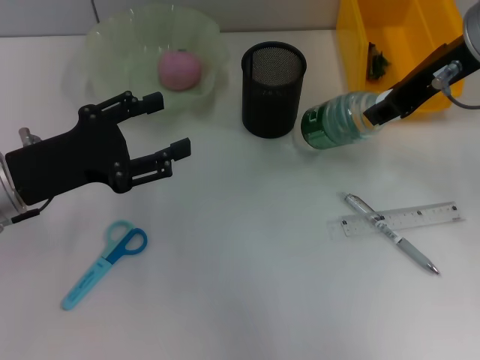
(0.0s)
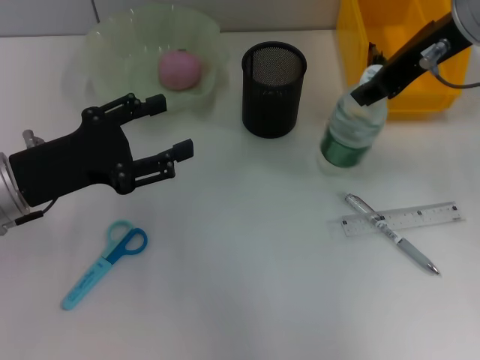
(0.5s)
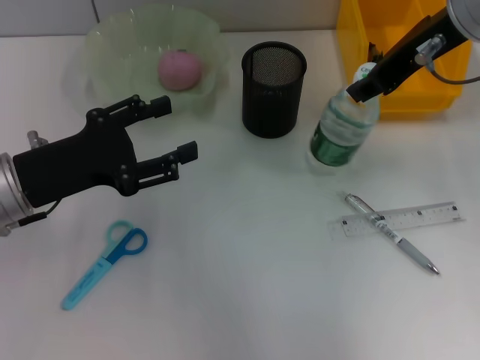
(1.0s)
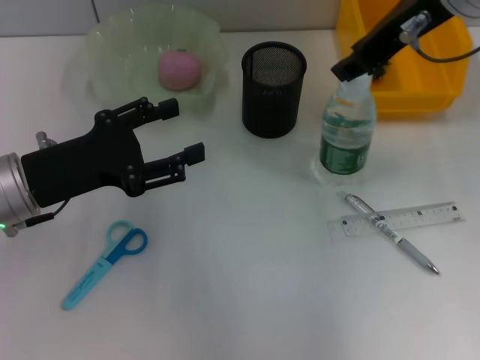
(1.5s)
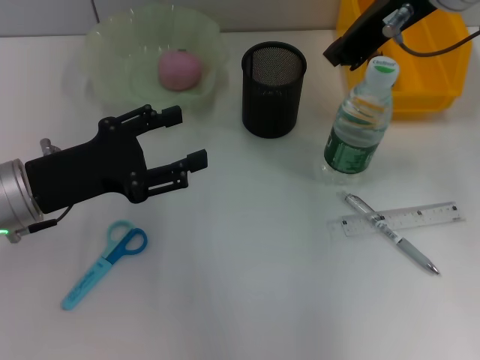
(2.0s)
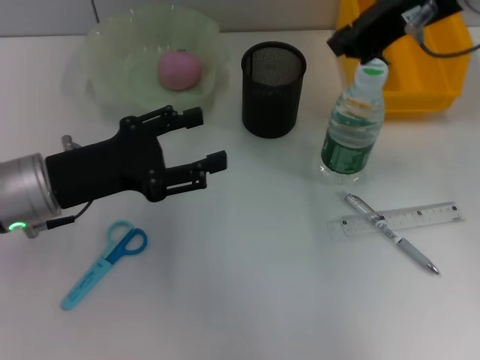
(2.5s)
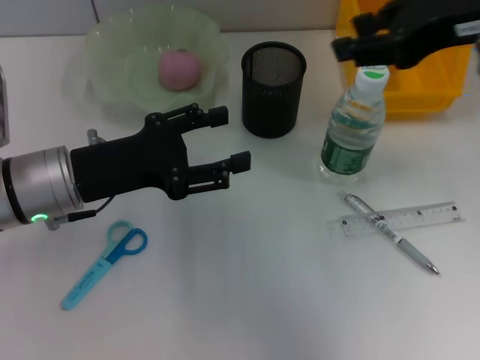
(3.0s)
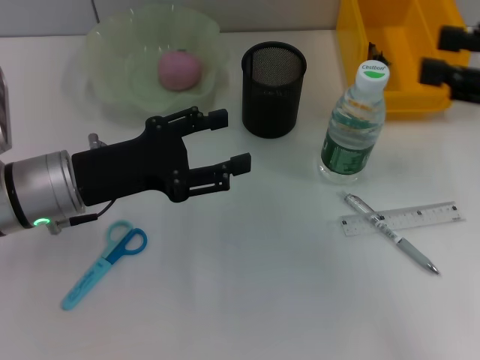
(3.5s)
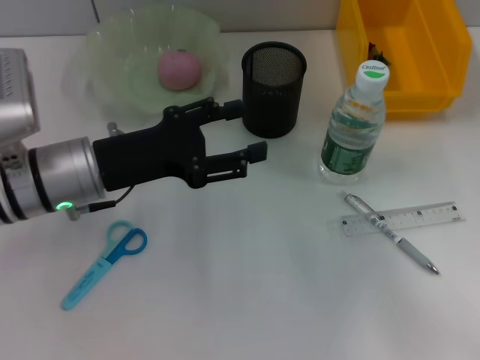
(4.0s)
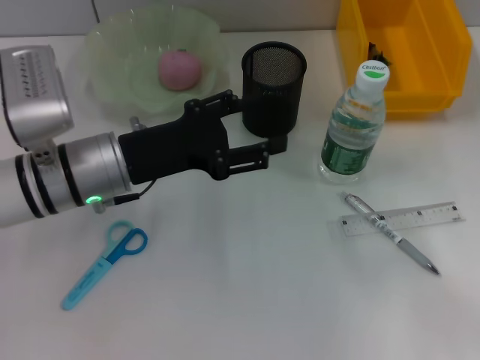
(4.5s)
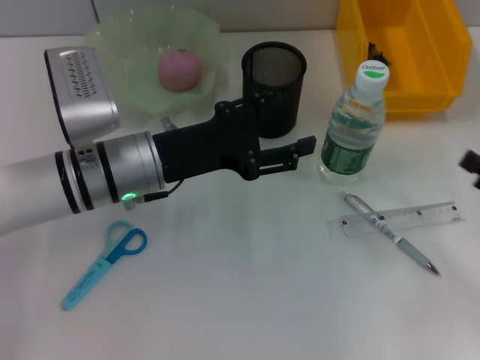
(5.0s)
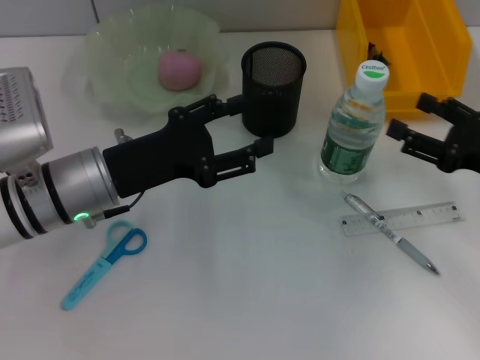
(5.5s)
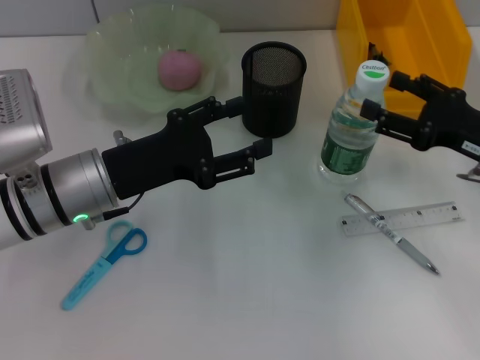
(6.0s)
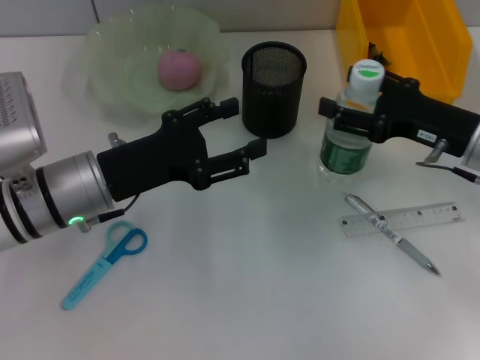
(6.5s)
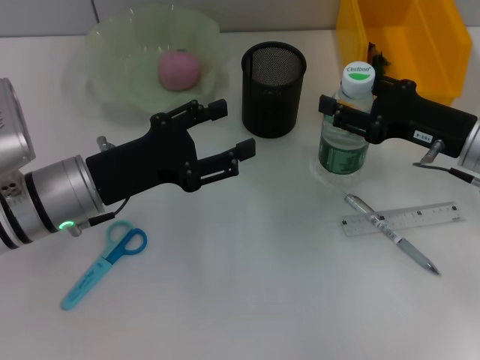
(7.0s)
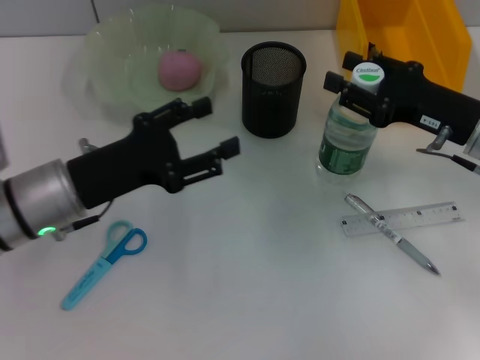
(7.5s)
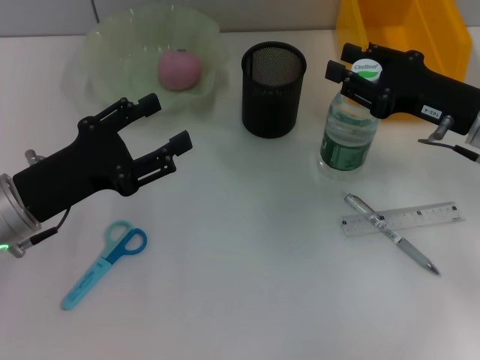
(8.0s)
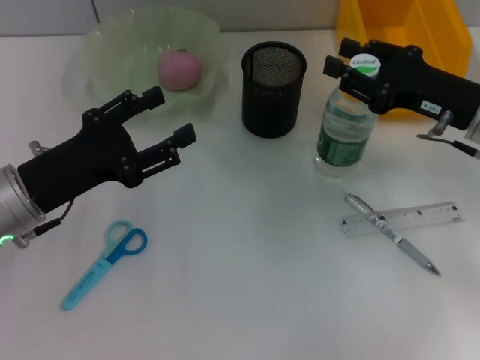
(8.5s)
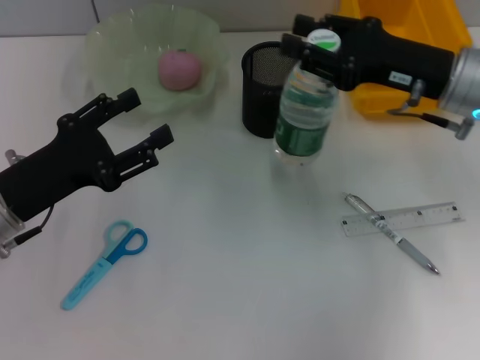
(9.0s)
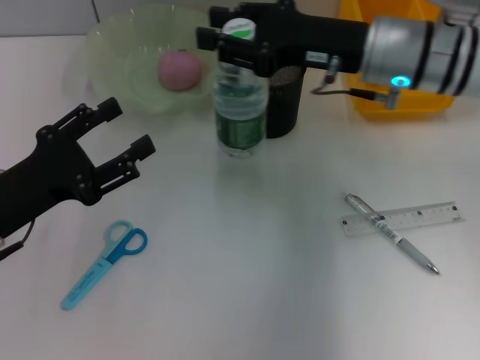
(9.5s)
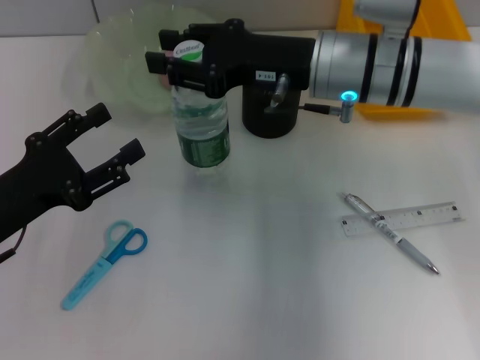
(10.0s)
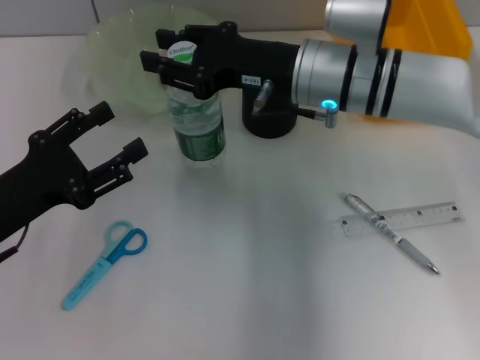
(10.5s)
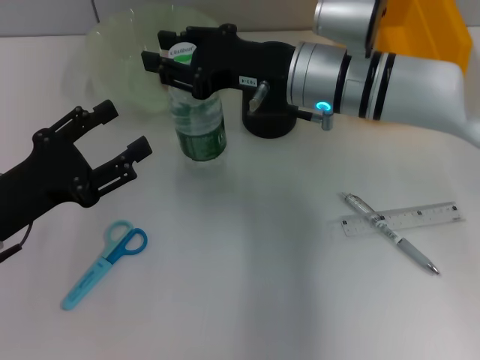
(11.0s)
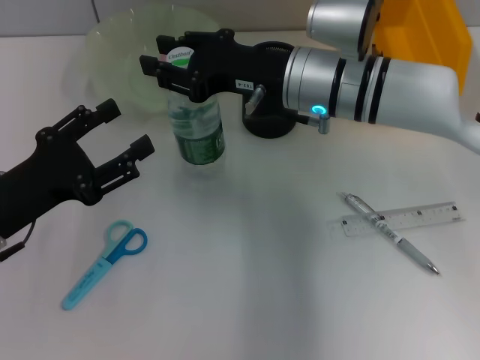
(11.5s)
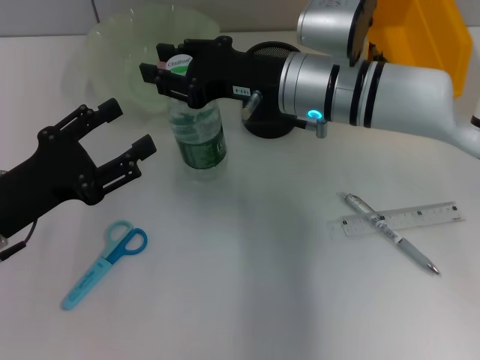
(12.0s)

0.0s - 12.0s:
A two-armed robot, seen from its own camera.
Step, 0.0s - 7.5s: Grab the water bottle with the right hand.
0.0s - 2.0s: The right gripper changes place by about 5 cm, and closes up.
2.0s - 4.0s: The right gripper heads to the right, backward and downward, covering about 35 cm, and opens up; the left gripper ends up roughly 5 cm from where it was.
4.0s - 6.0s: The right gripper moves forward and to the left, about 15 cm.
6.0s - 8.0s: The right gripper shifts by roughly 5 cm, and closes its fingers. Meanwhile the left gripper travels to the left by some 5 cm.
8.0s - 10.0s: The right gripper is displaced to the left by about 15 cm.
10.0s - 12.0s: The grippers make only small movements.

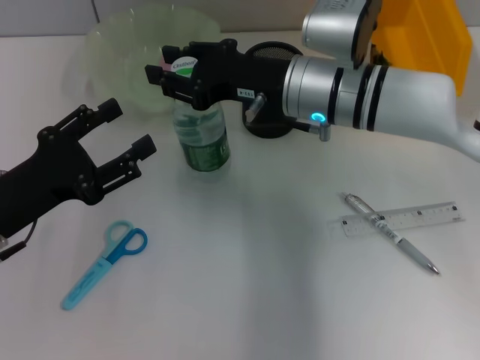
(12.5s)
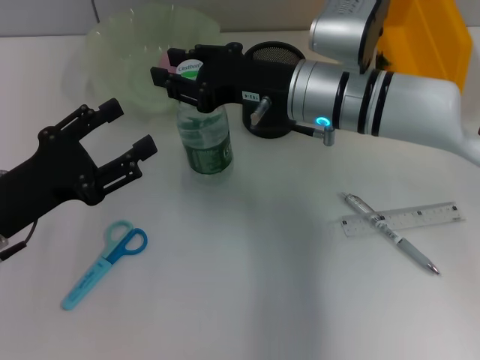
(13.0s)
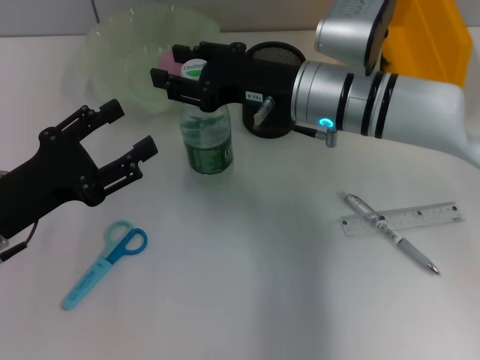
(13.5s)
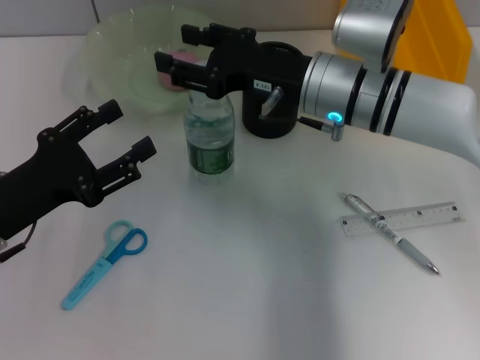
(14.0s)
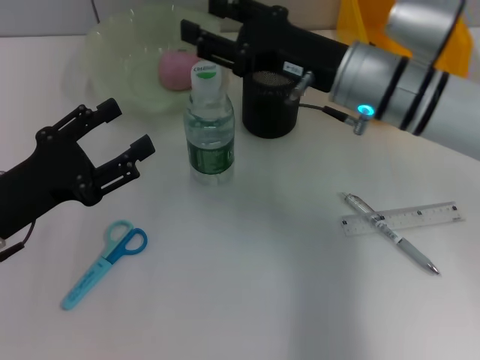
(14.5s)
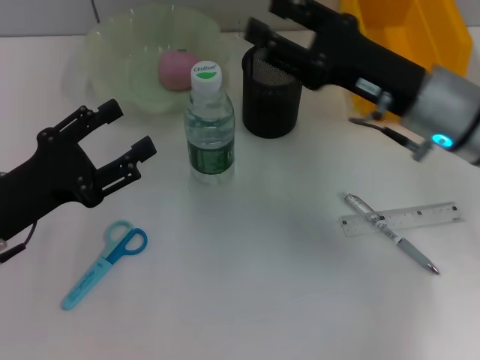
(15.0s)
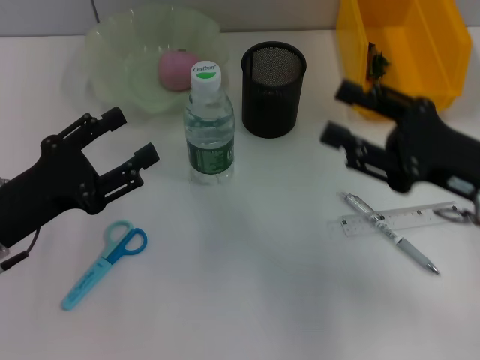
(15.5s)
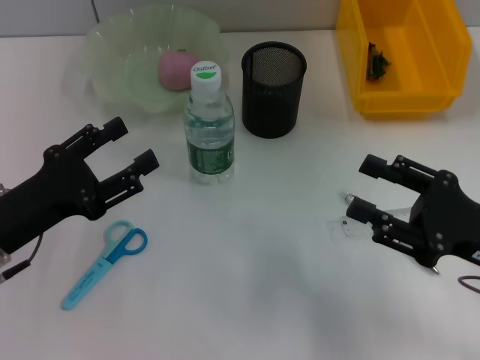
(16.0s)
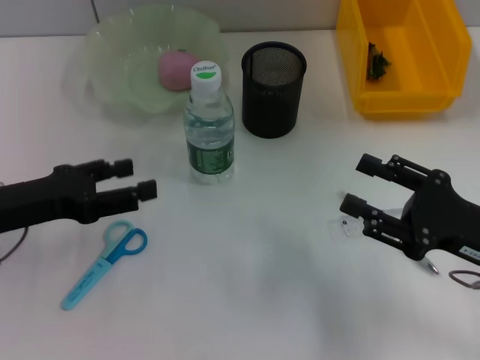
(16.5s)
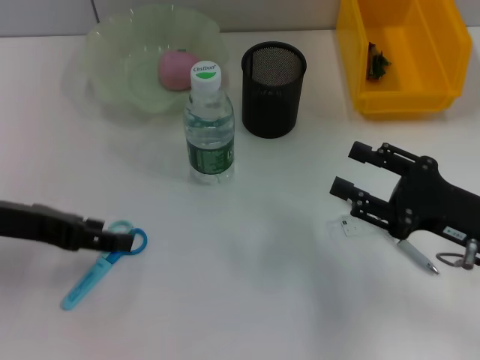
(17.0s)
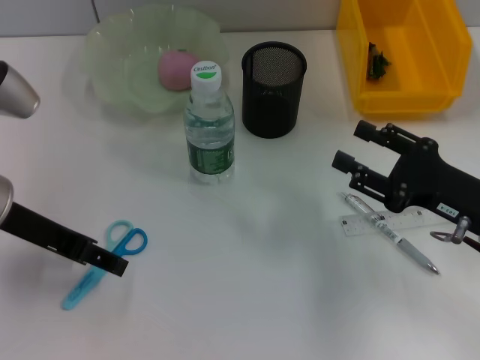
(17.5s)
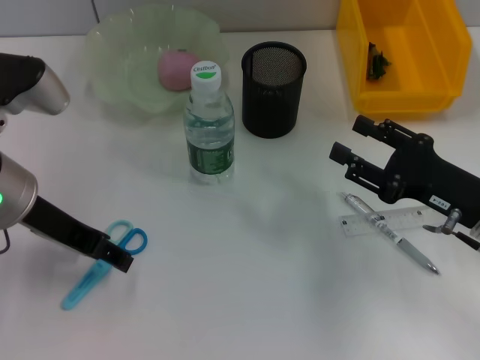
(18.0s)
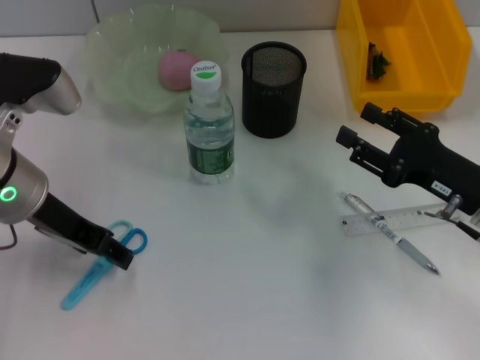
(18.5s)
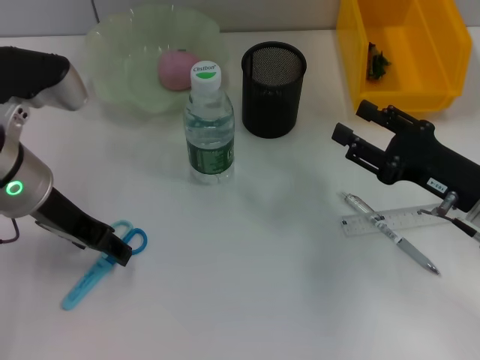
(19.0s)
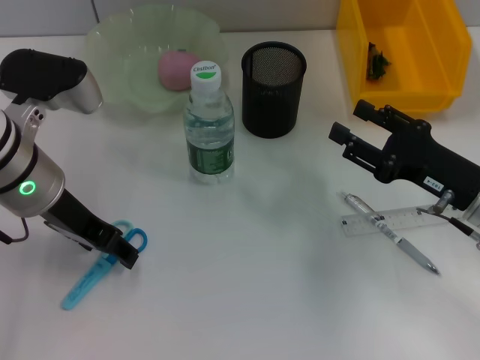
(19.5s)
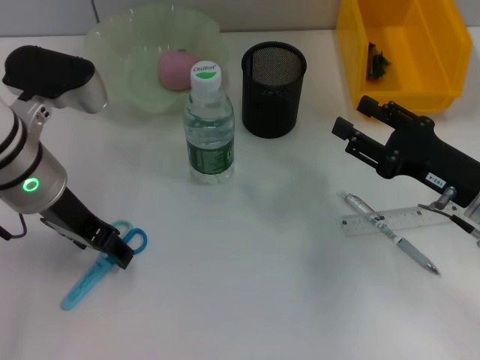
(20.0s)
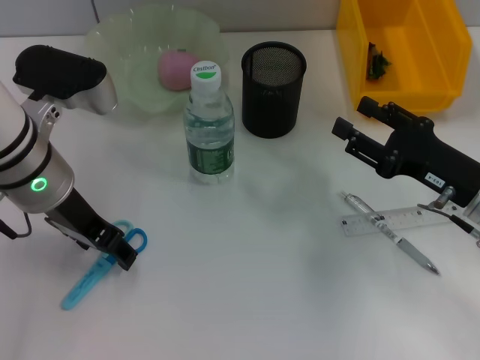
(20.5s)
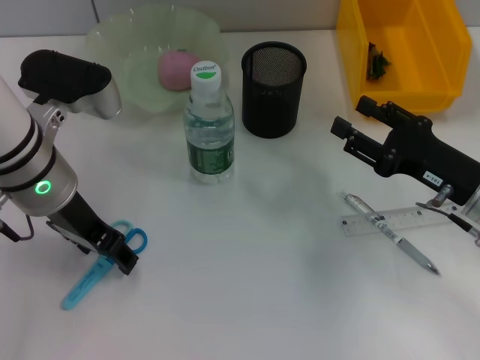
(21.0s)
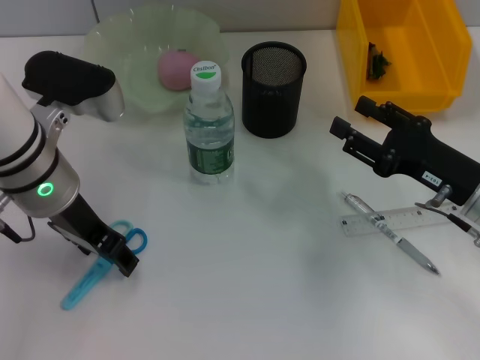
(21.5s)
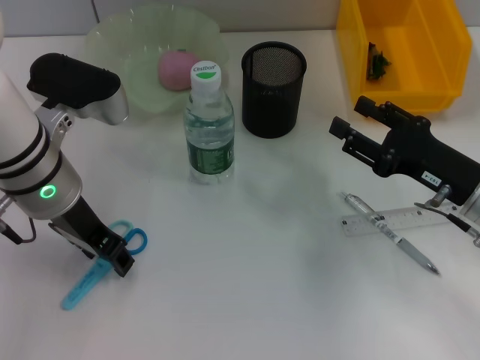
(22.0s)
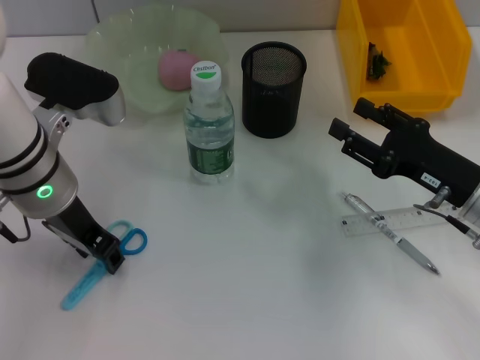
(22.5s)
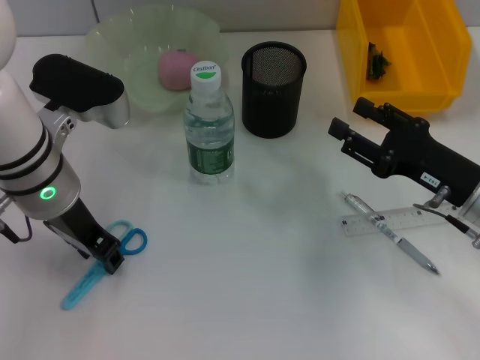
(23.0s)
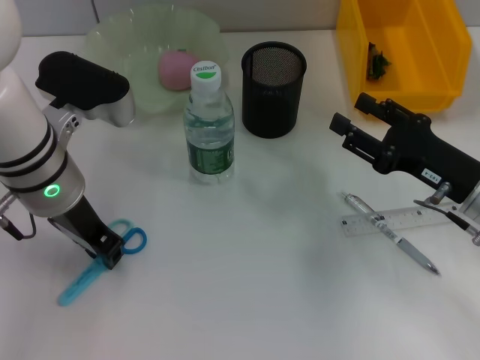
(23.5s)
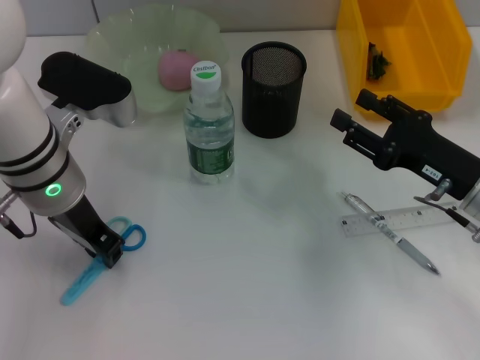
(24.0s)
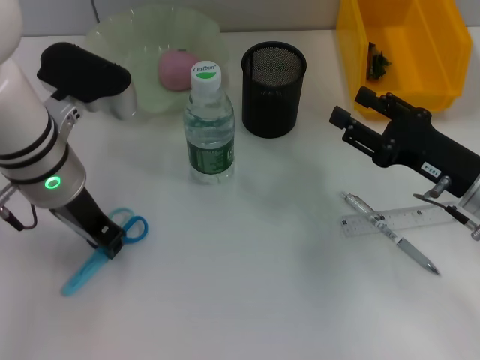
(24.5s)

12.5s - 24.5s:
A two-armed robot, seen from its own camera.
Step, 14.0s - 24.0s: Grab the blue scissors with the left hand.
12.5s - 14.5s: There are only small adjustments of the grippers.
14.5s - 16.5s: The right gripper is displaced backward, to the right and downward by approximately 20 cm.
16.5s - 18.5s: The left gripper moves to the right, approximately 5 cm. The right gripper is displaced forward by approximately 5 cm.
18.5s - 22.5s: The grippers make only small movements.
22.5s - 24.5s: The left gripper closes its fingers.

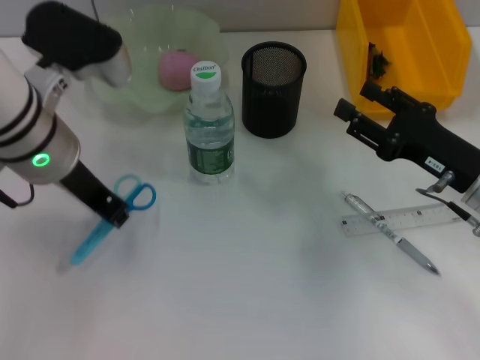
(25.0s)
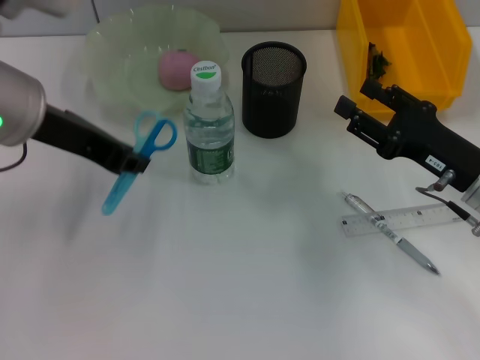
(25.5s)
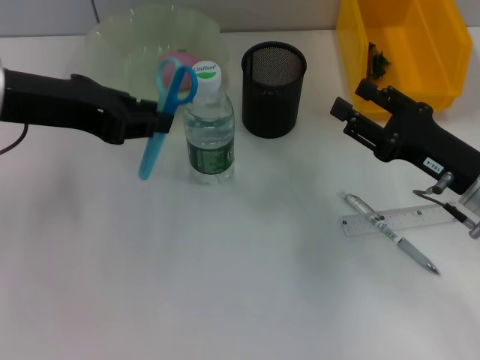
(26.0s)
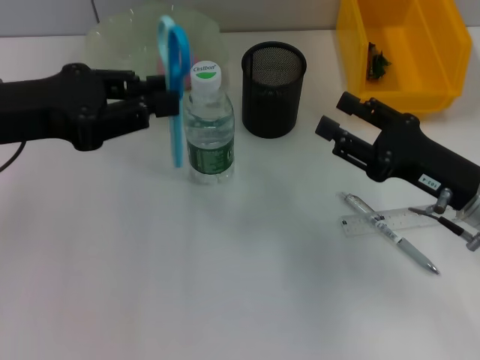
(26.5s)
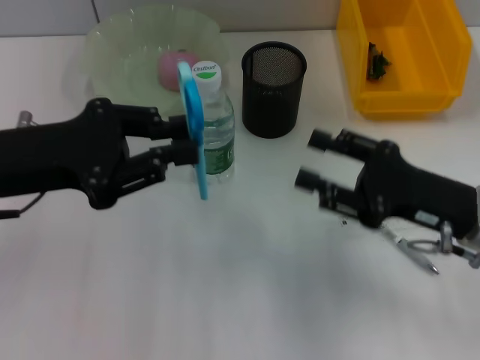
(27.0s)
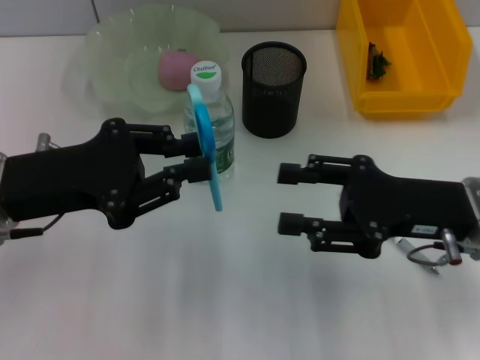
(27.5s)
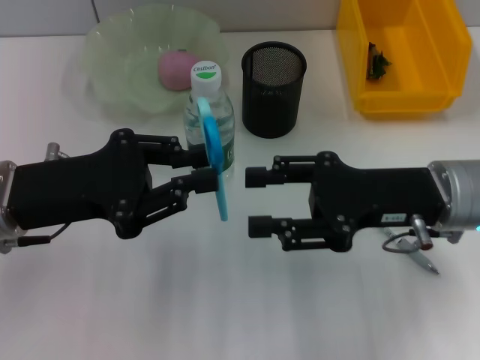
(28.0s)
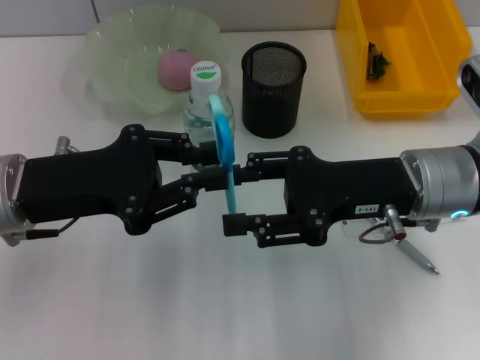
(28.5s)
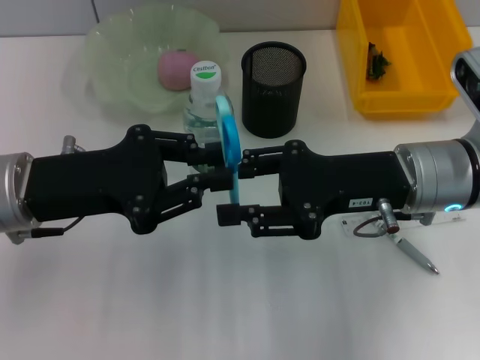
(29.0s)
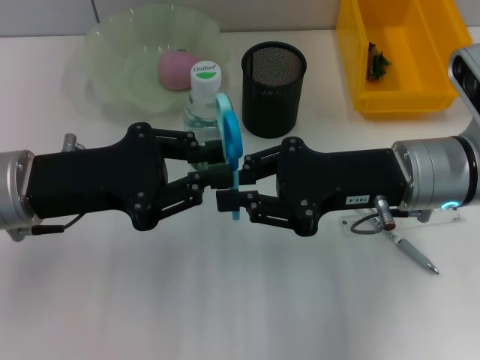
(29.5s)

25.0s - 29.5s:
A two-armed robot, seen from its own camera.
25.0s - 27.0s: The left gripper travels to the left and backward by approximately 10 cm.
27.0s - 29.5s: The right gripper is displaced to the left by about 5 cm, and closes.
